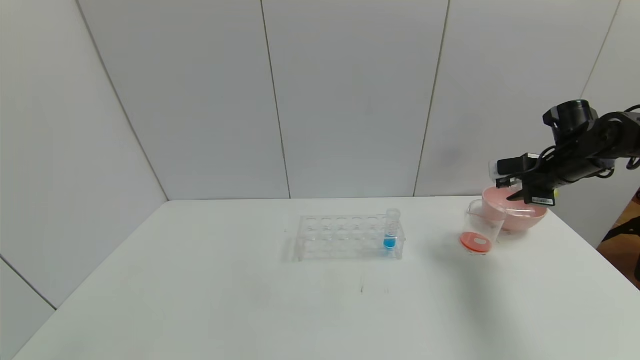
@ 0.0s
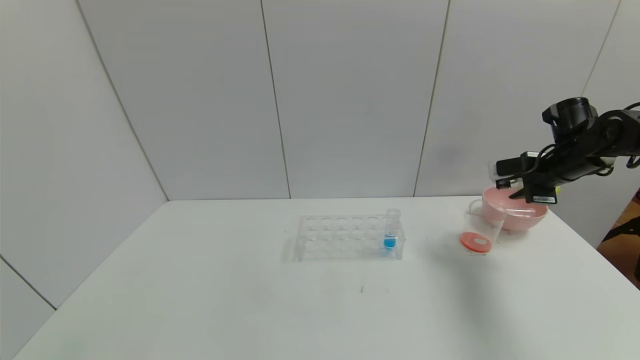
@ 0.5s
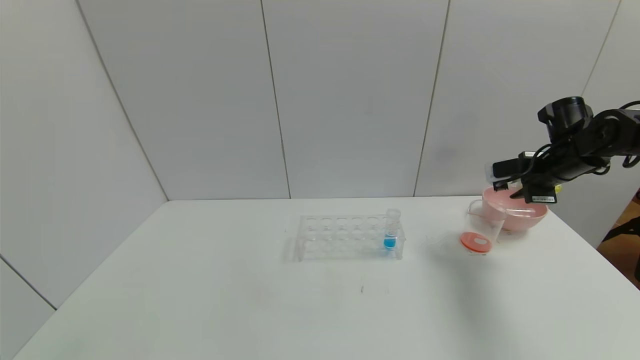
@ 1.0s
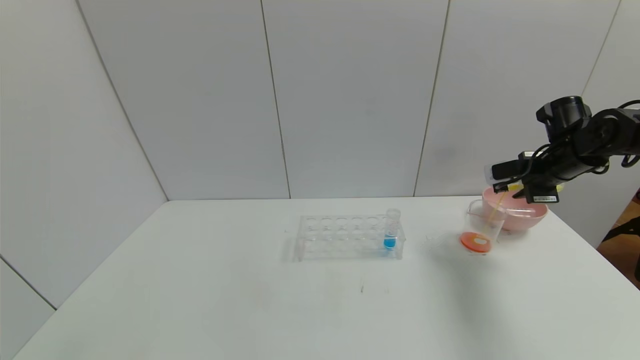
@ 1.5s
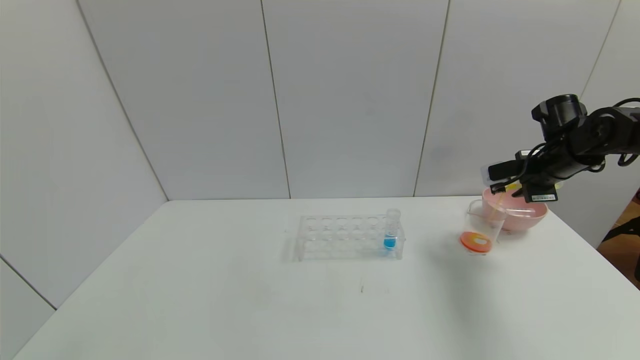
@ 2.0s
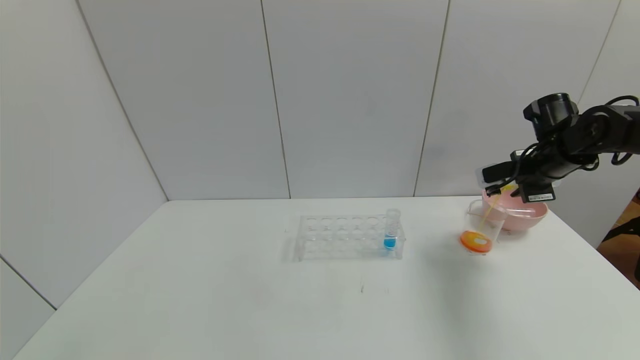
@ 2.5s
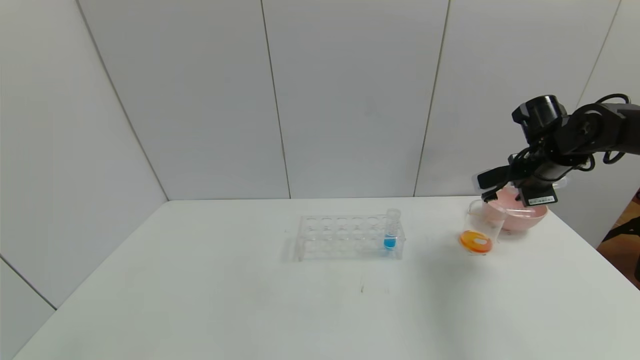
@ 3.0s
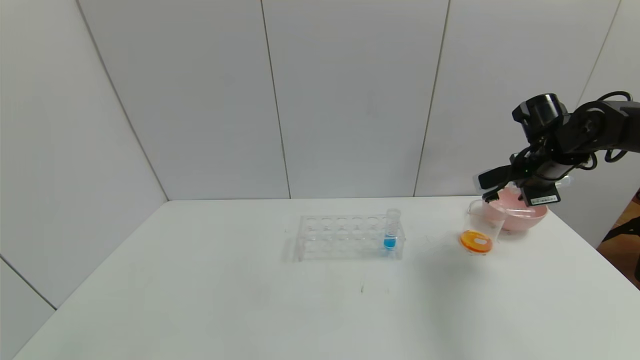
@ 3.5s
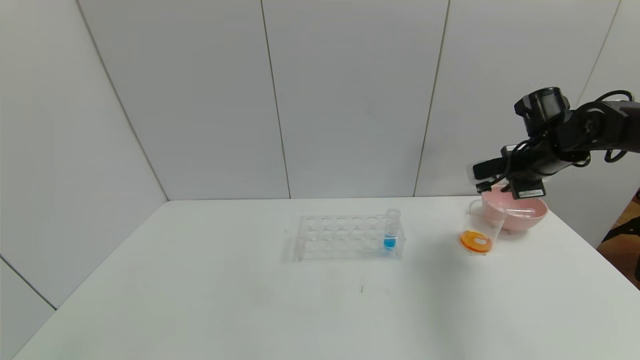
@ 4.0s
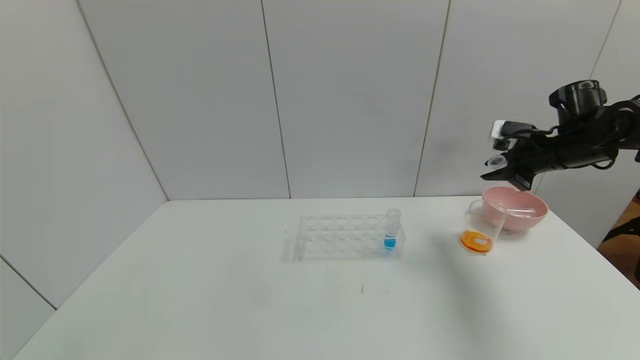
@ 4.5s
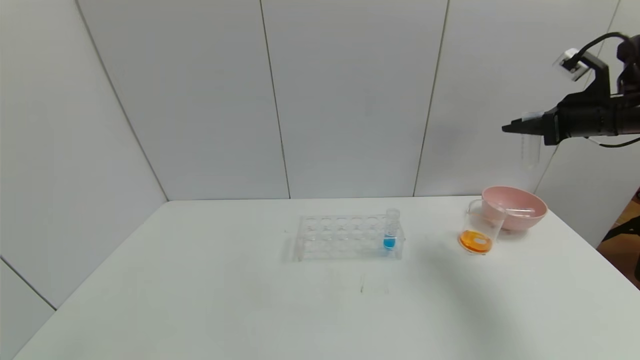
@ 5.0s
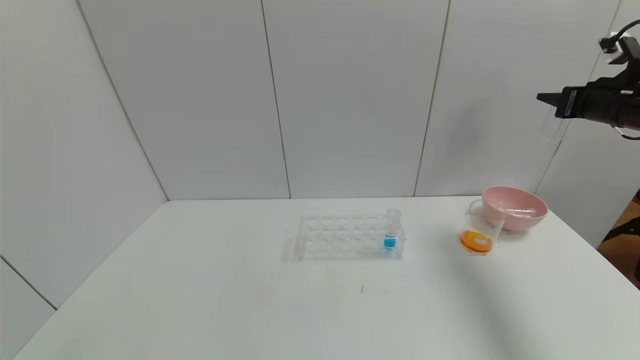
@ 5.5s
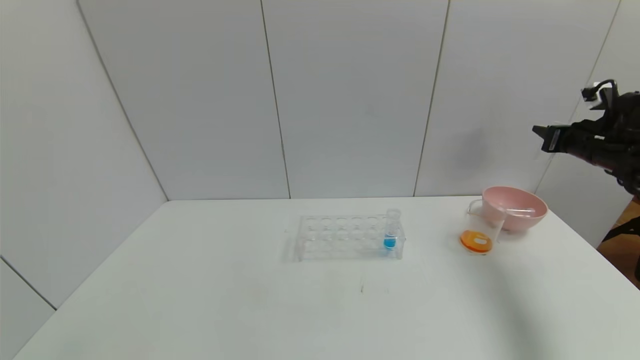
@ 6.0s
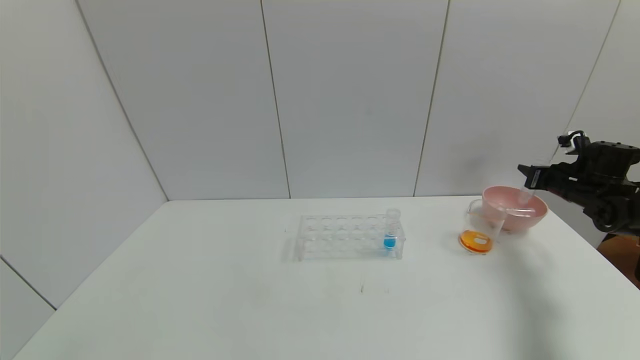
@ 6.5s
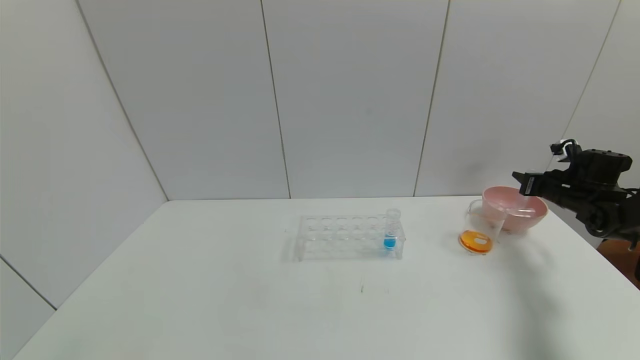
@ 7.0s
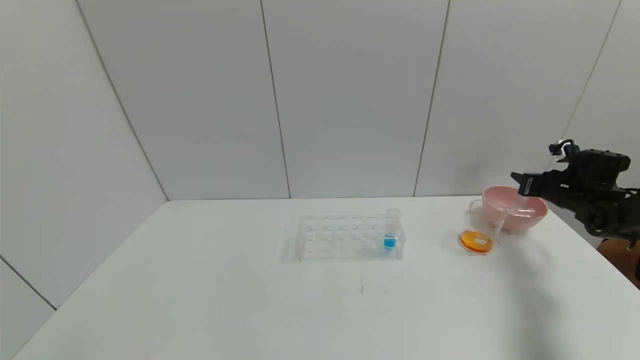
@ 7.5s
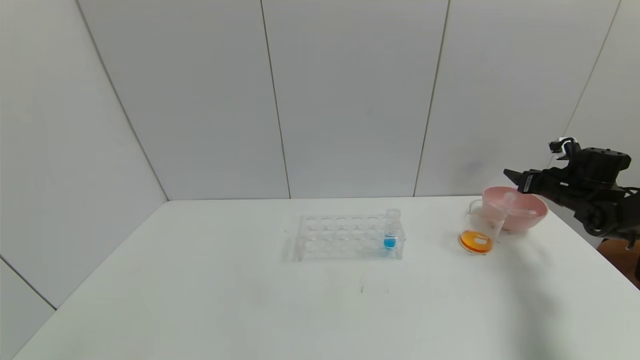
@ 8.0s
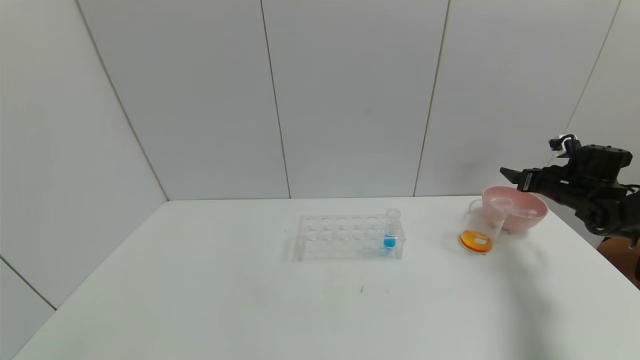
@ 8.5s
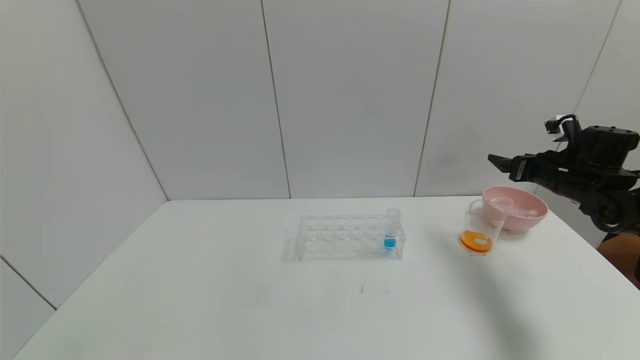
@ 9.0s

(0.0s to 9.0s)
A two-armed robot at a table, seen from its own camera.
Task of the whole recording: pick up the test tube with yellow pigment and the test tube with red pigment by grippers and pour them into the beaker.
Step, 0.0s - 3.0s: Pour the yellow reagent into the graduated cylinder with the right gripper.
Step, 3.5s - 7.5s: Place the test tube into the bowl with the right gripper.
0.0s - 2.0s: The grippers move only a little.
4.5s - 7.0s: The right gripper goes some 15 cm downward and to the right.
7.0s - 9.0s: The right gripper is displaced to the left and upward by some 10 cm, and opens.

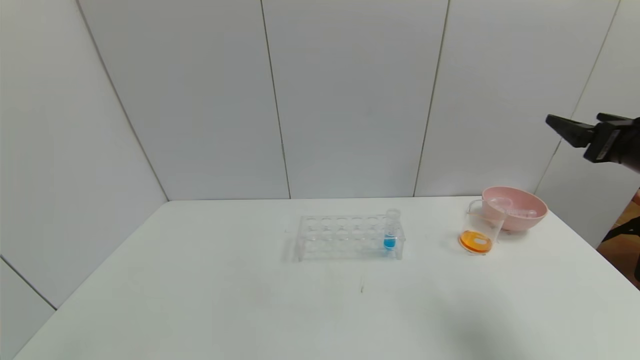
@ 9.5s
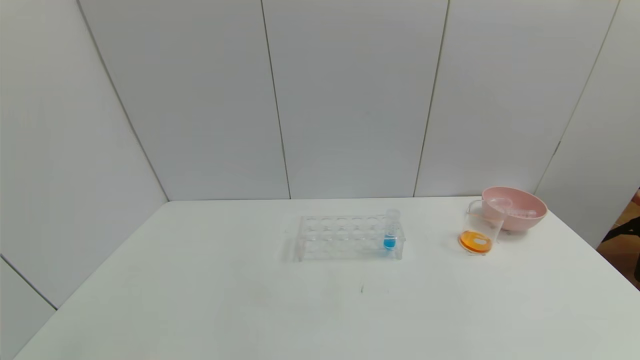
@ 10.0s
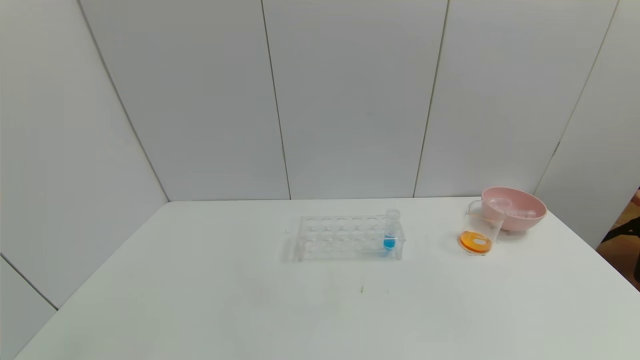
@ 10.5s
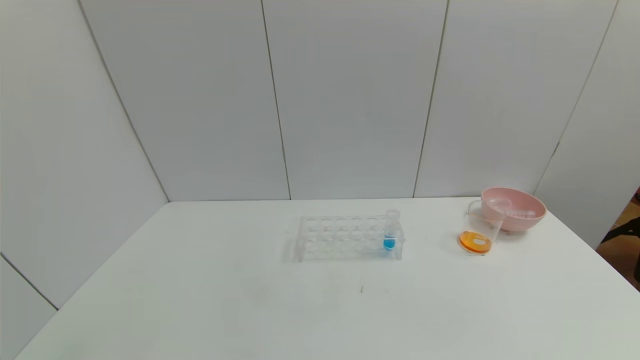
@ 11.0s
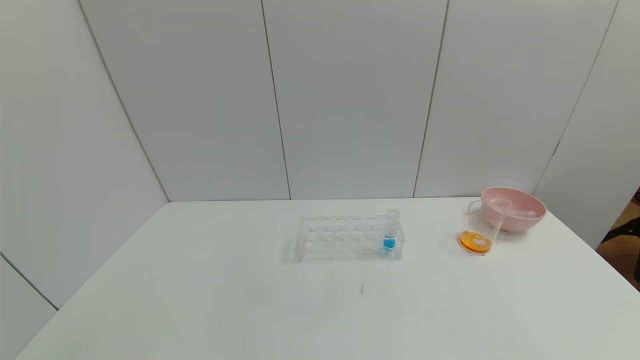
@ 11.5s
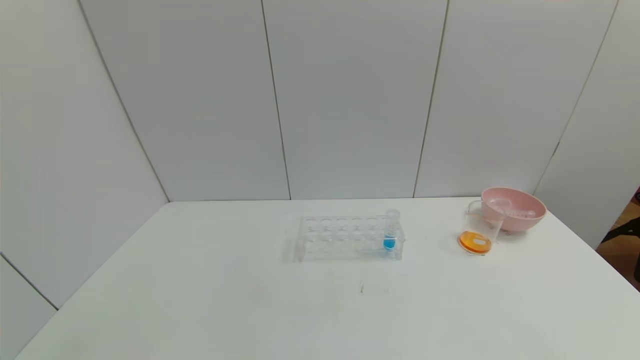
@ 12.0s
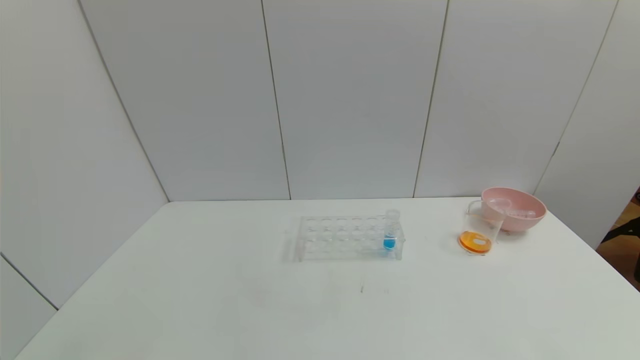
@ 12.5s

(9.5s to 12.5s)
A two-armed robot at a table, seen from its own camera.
Task of the whole recording: pick up the test tube with yellow pigment and the test tube with red pigment by grippers and pour them into the beaker.
9.5s - 11.0s: The right gripper goes approximately 35 cm backward.

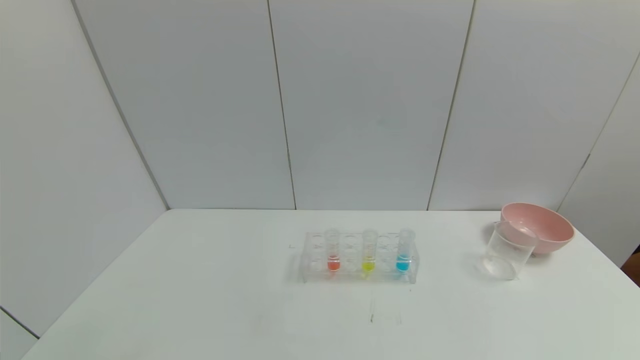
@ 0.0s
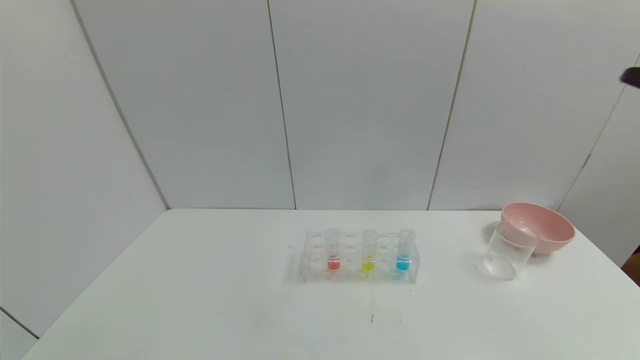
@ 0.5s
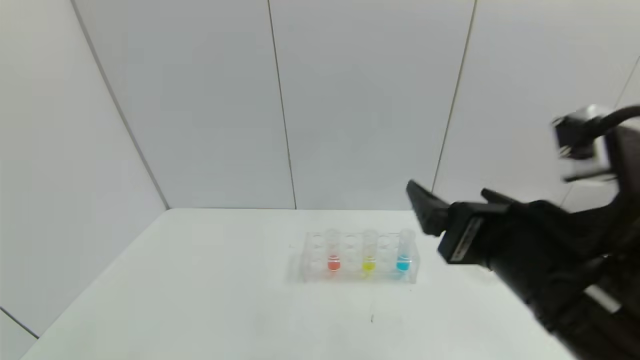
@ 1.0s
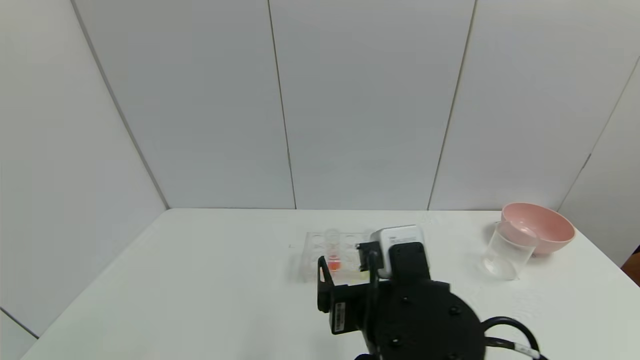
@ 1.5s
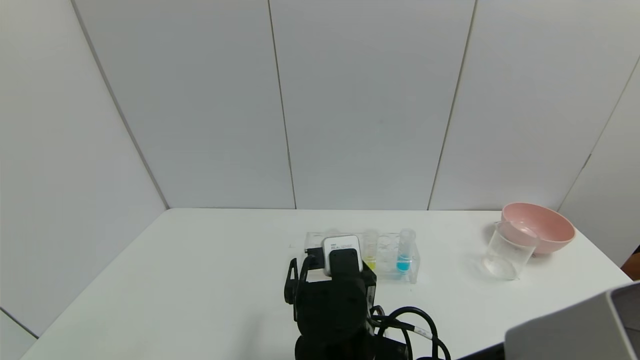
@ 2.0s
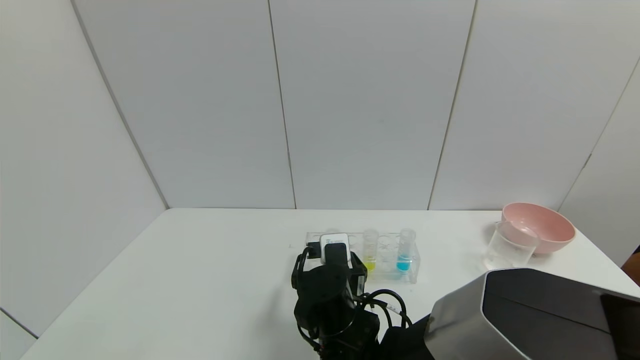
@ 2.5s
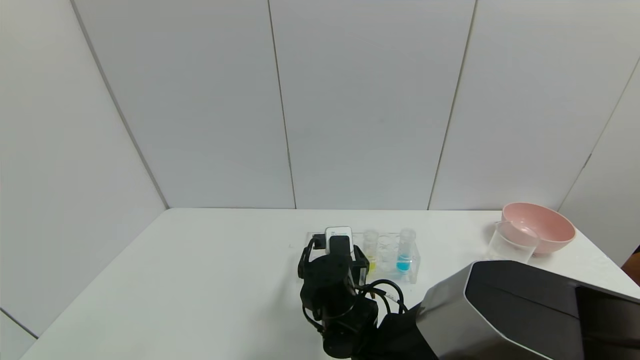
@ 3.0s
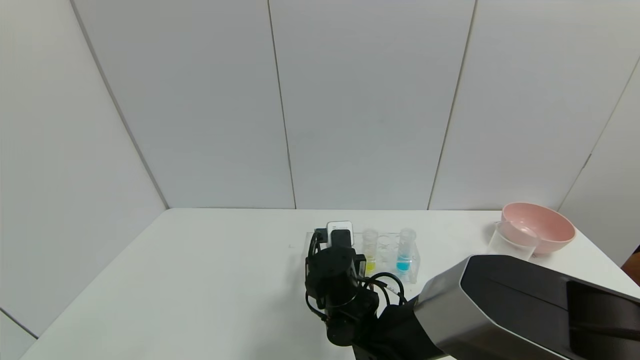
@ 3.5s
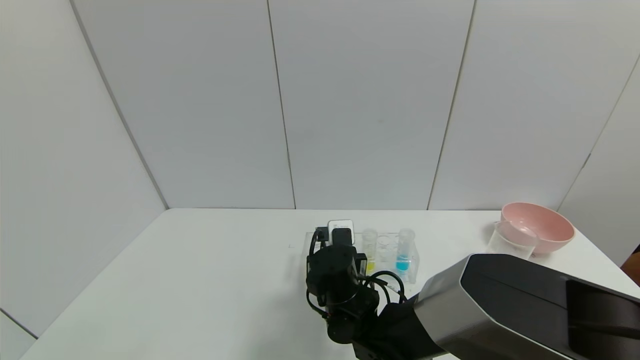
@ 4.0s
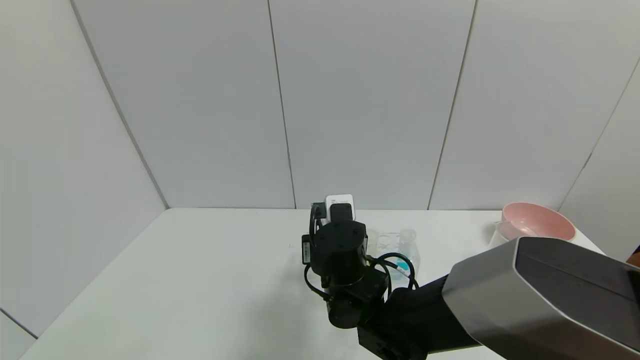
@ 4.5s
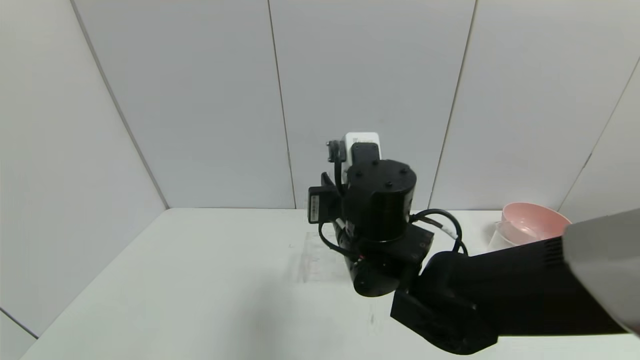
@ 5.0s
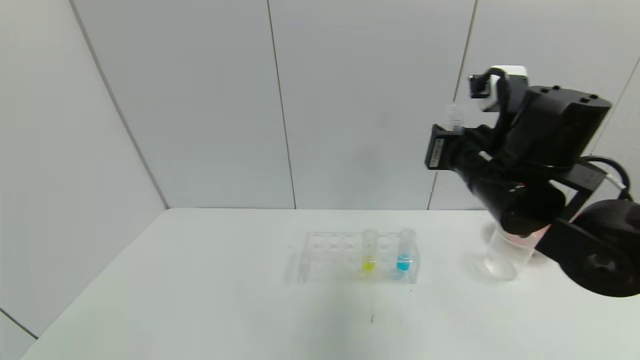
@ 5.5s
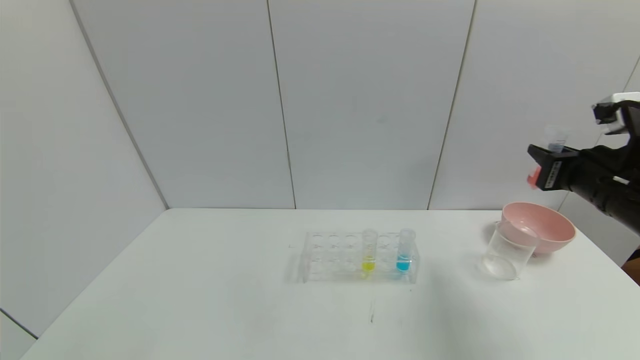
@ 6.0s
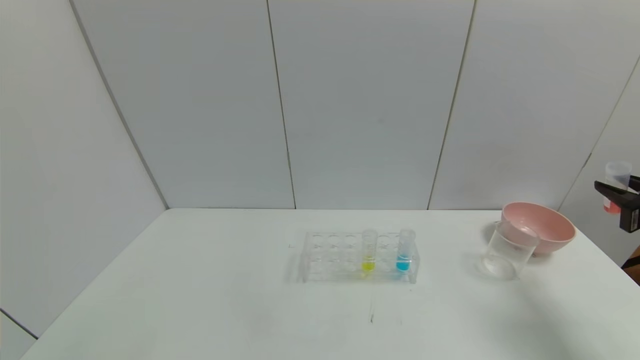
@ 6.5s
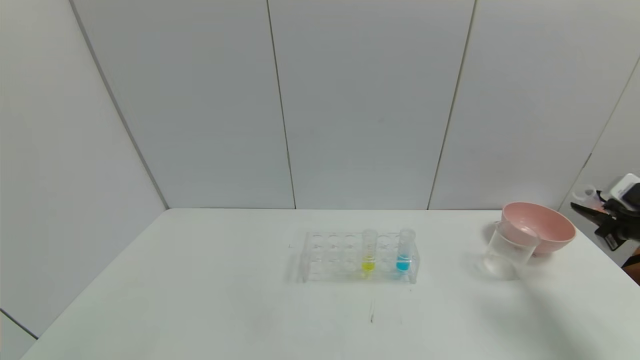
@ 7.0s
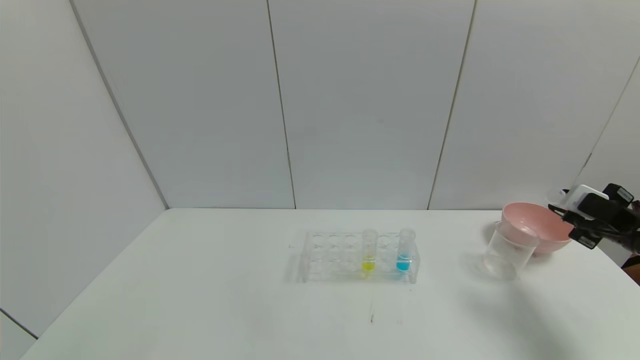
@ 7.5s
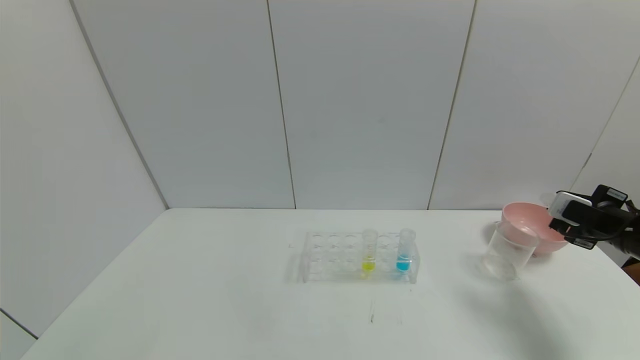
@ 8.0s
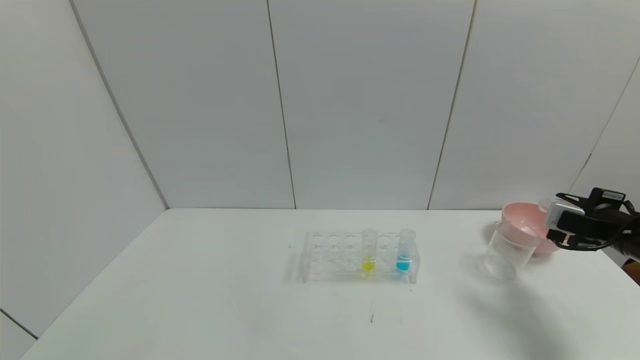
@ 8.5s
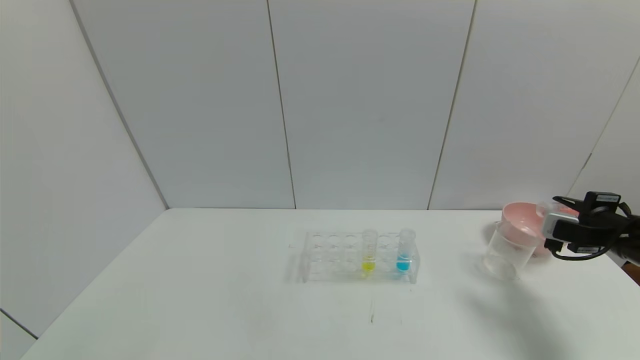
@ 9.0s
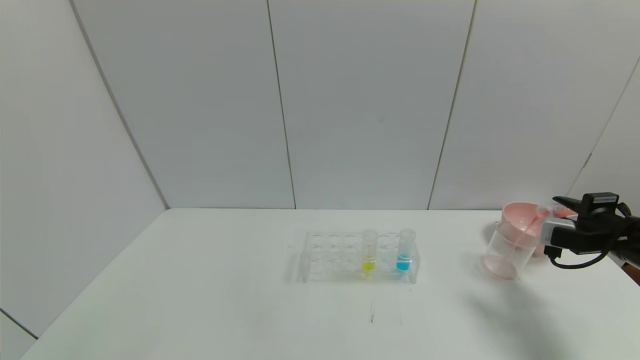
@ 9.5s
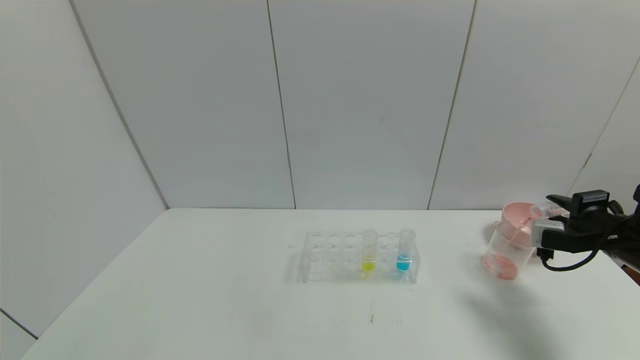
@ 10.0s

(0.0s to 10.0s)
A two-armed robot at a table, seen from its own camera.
Task of the whole recording: pick up the test tube with yellow pigment and the test tube with red pigment by grippers and pour them into the beaker.
Step, 0.0s - 4.0s: Grasp the red reagent with the right gripper.
0.0s - 2.0s: The right gripper goes approximately 40 cm to the left, downward and forward.
2.0s - 4.0s: The right gripper is displaced forward and downward by about 10 cm, and closes up.
4.0s - 6.0s: The right gripper shifts about 40 cm to the right and upward.
6.0s - 8.0s: The right gripper goes approximately 15 cm to the right and downward.
